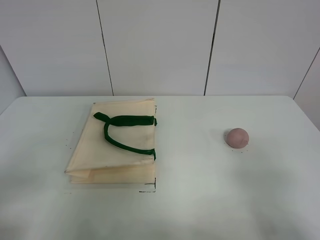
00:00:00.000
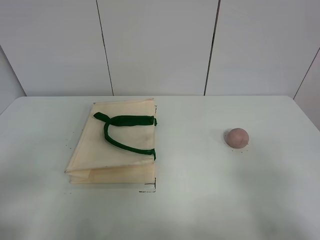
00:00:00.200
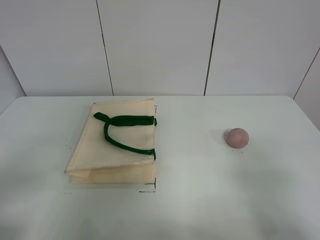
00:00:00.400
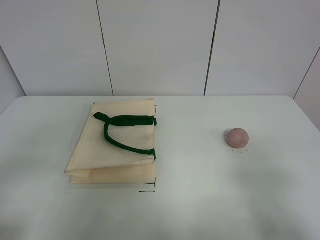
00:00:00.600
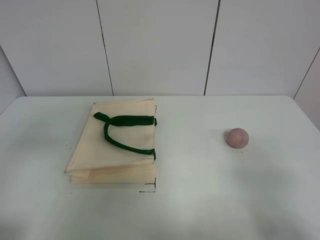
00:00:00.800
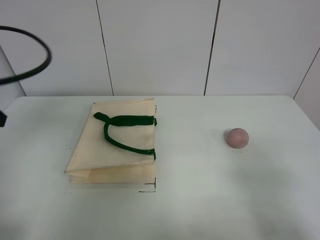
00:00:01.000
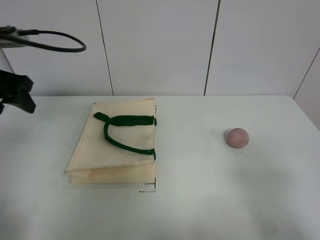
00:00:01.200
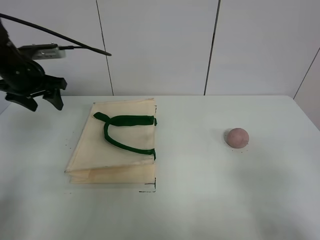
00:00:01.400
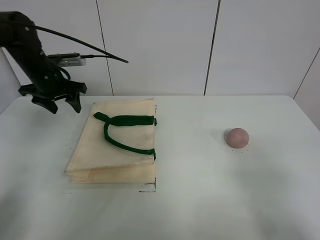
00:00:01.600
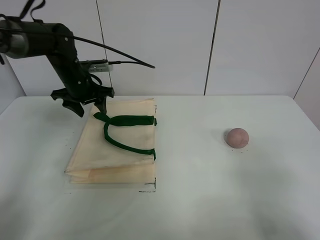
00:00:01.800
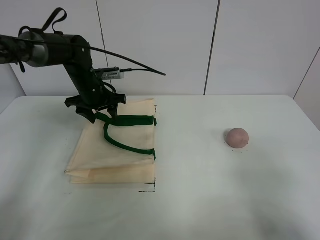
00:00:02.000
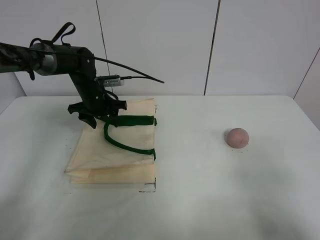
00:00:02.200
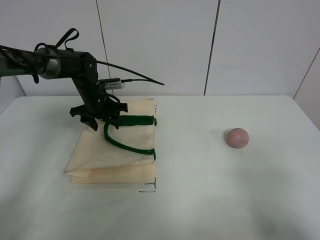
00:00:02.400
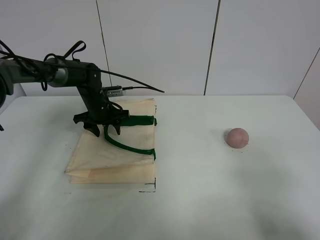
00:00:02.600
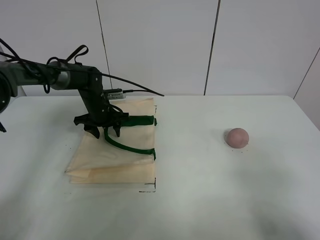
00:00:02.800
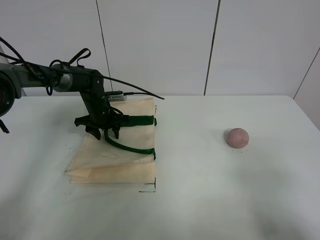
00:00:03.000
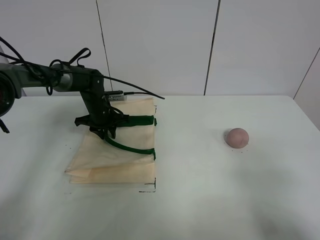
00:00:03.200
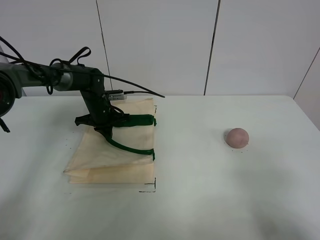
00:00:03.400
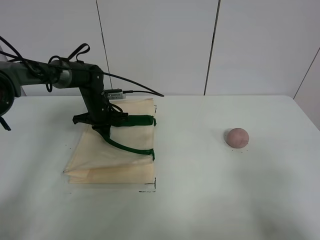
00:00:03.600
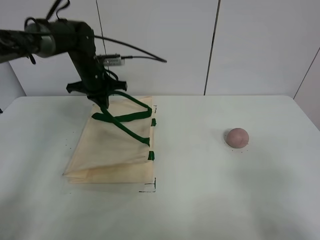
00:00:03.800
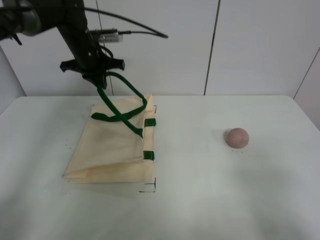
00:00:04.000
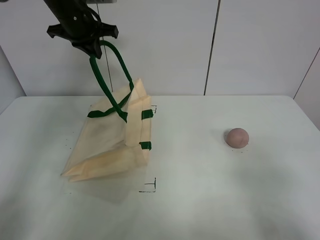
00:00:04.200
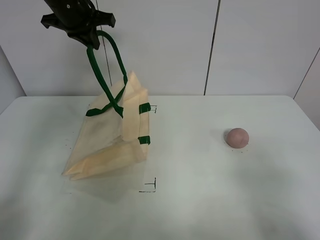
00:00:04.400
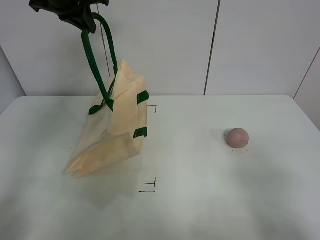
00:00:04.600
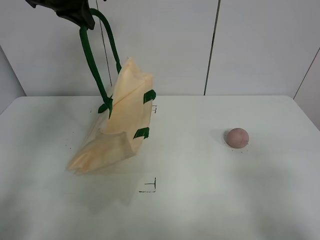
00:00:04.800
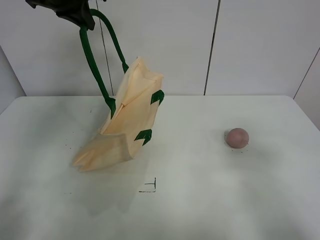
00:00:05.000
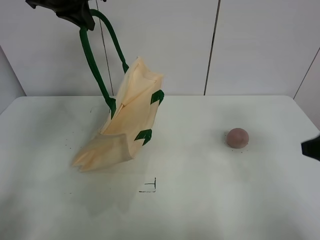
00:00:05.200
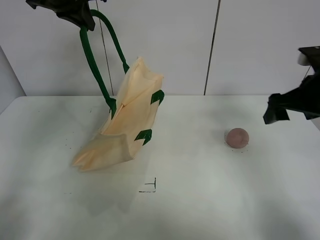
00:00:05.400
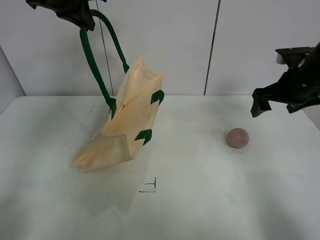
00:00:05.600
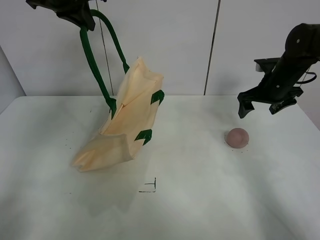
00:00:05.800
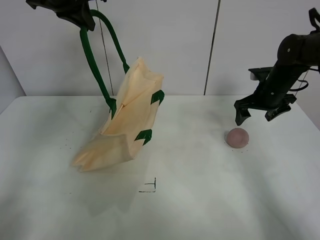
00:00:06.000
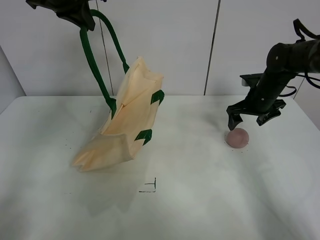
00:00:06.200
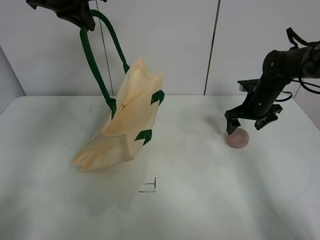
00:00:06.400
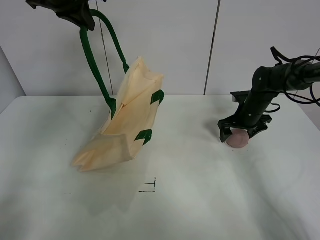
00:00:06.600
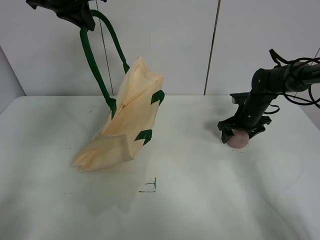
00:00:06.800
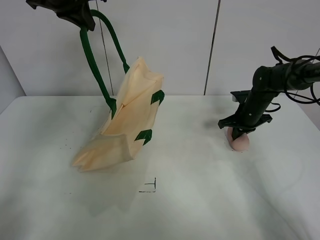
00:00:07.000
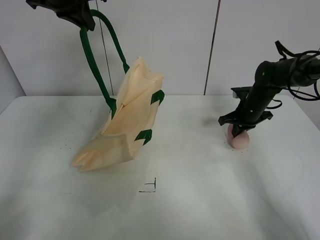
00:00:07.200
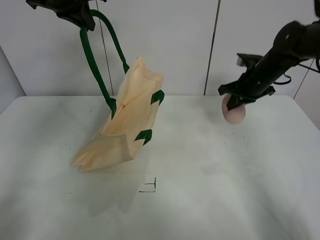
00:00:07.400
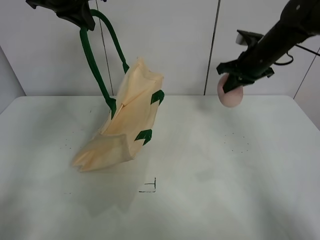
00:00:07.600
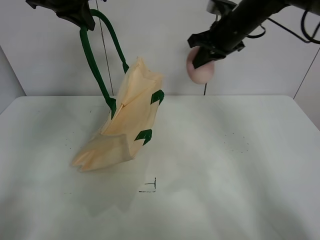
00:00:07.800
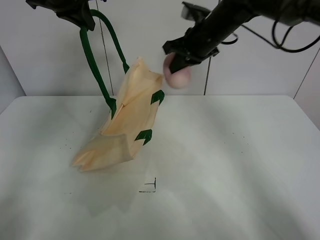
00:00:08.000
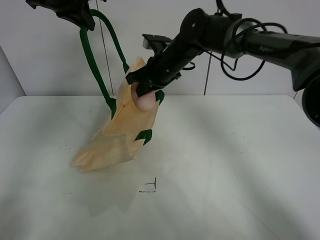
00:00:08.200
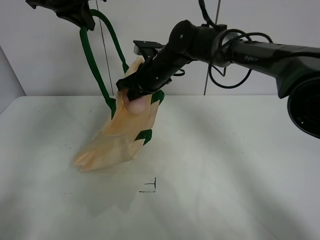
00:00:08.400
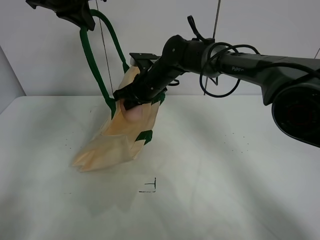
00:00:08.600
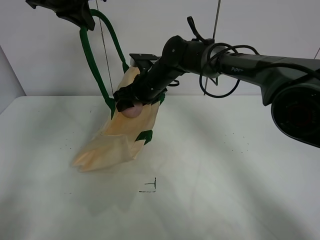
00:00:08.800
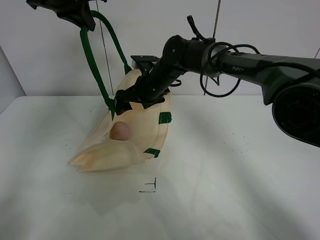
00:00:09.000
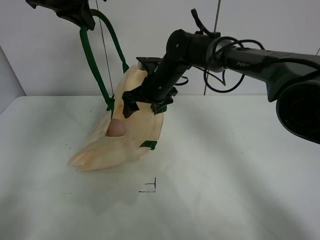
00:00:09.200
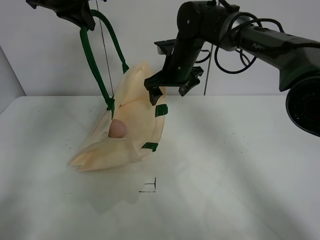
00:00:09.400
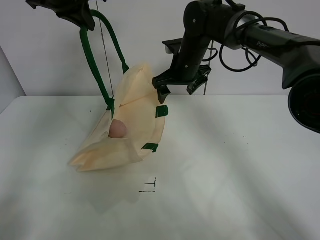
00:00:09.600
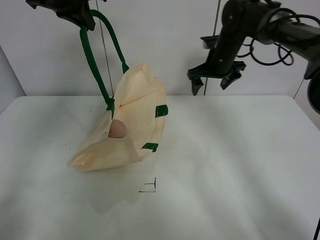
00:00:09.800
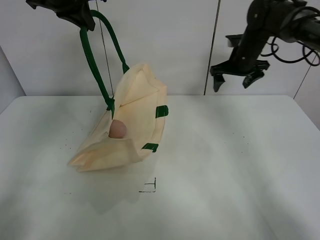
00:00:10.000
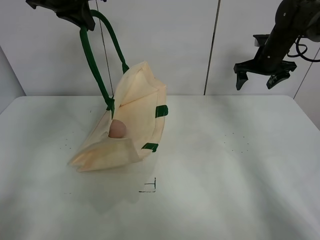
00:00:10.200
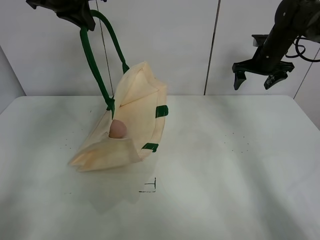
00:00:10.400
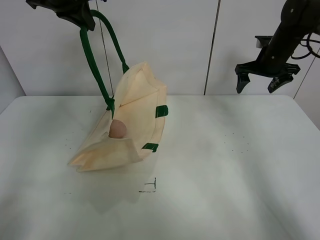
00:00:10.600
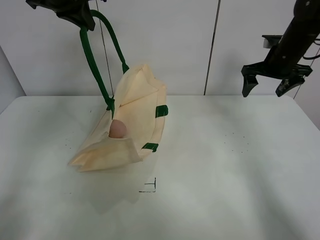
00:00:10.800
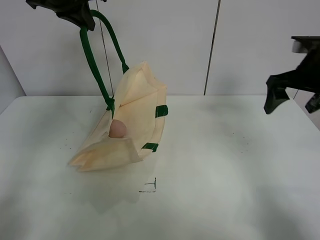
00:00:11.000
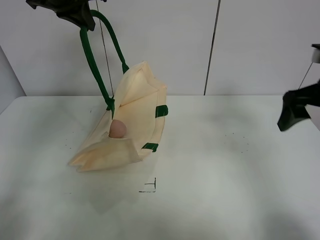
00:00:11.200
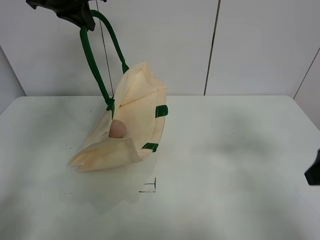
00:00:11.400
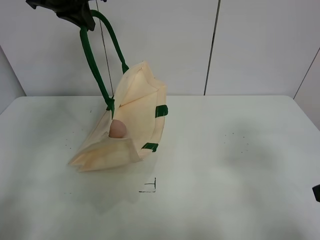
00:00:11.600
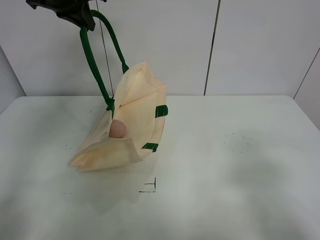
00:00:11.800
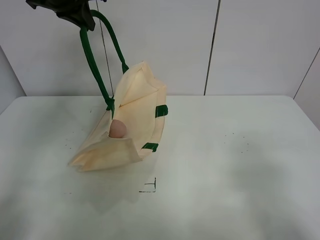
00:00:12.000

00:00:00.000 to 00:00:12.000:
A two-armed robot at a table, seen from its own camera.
Task of the whole recording: open the white linen bag and put the peach in the bag.
Step, 00:00:00.000 to 00:00:04.400: Lift the handbag with left gripper.
Step, 00:00:04.600 to 00:00:07.200: Grasp the peach with right gripper.
Step, 00:00:07.400 to 00:00:09.000: Place the peach in the handbag with right gripper.
00:00:00.000 to 00:00:01.600: The left gripper shifts approximately 40 cm forward.
00:00:01.600 to 00:00:03.000: The left gripper goes about 15 cm downward and to the right.
00:00:03.000 to 00:00:04.400: The left gripper shifts about 30 cm upward, and closes up.
00:00:04.400 to 00:00:06.000: The right gripper moves forward, roughly 40 cm.
00:00:06.000 to 00:00:07.600: The right gripper goes roughly 10 cm upward and to the left, and closes.
00:00:07.600 to 00:00:09.000: The right gripper moves to the left, about 20 cm, and opens.
00:00:09.000 to 00:00:10.400: The right gripper is displaced to the right by some 30 cm.
00:00:10.400 to 00:00:12.000: The right gripper goes some 50 cm backward.

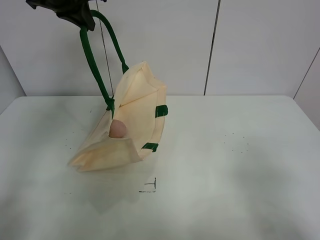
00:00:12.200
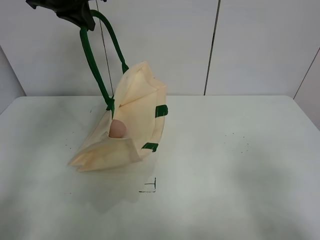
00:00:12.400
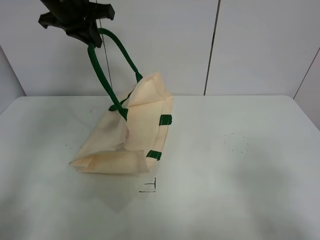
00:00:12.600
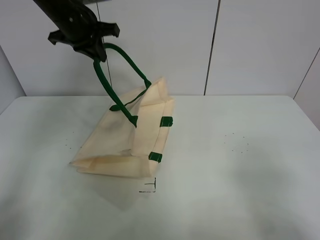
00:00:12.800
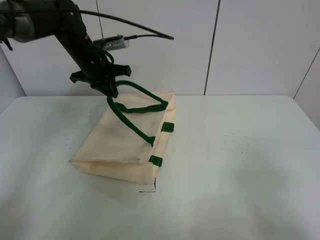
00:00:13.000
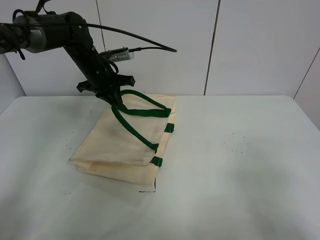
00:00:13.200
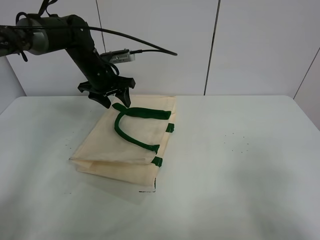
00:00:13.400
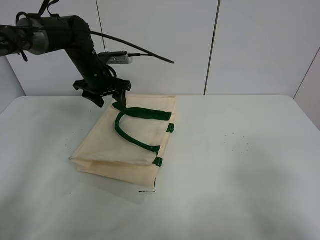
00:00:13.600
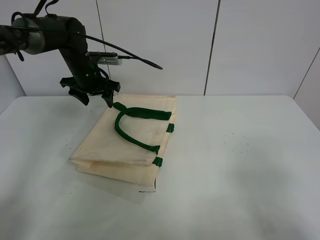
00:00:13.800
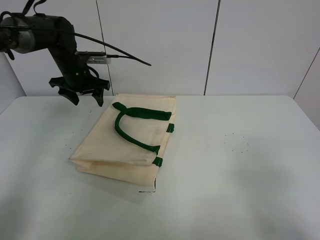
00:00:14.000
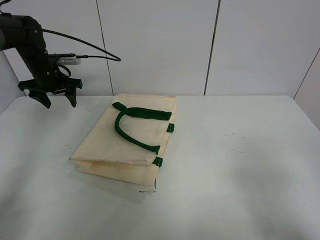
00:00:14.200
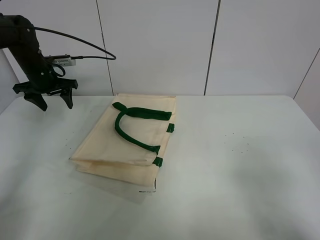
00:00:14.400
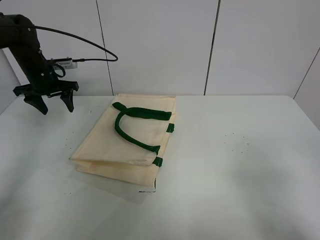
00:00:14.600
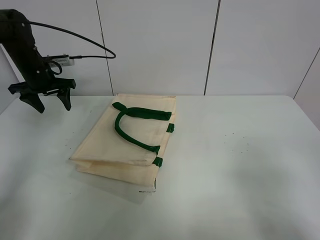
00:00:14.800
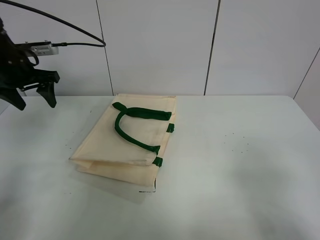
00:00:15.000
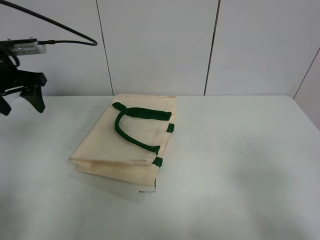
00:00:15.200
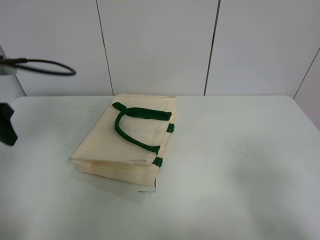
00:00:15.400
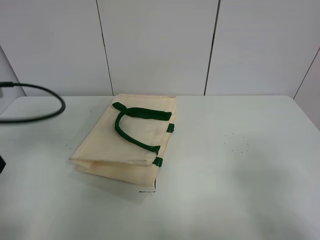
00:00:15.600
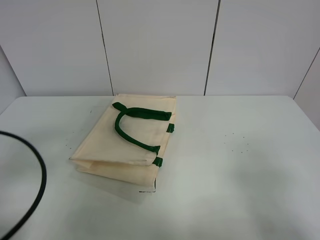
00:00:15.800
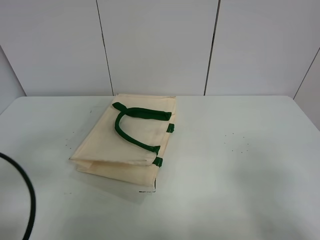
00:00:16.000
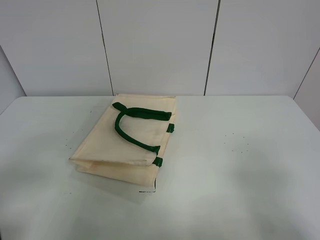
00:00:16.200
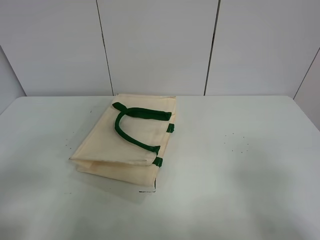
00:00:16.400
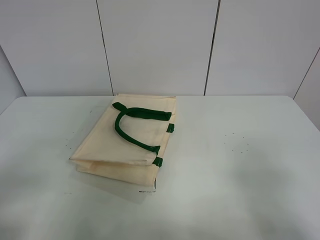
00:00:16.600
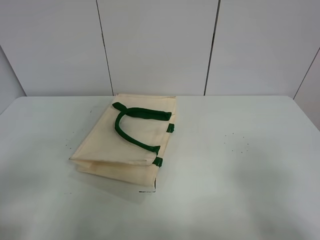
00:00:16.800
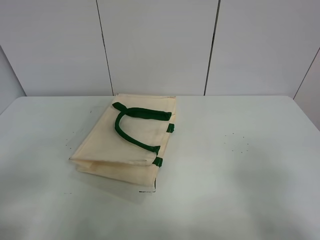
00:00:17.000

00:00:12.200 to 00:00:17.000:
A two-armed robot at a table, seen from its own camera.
Task of the whole recording: open the white linen bag and put the peach in the bag.
00:00:12.200 to 00:00:13.800: The left gripper heads downward, covering approximately 20 cm, and opens its fingers.
00:00:13.800 to 00:00:15.400: The left gripper moves backward and to the left, roughly 25 cm.
00:00:15.400 to 00:00:17.000: The left gripper travels backward by roughly 20 cm.
